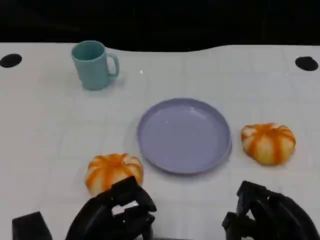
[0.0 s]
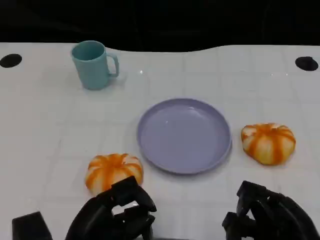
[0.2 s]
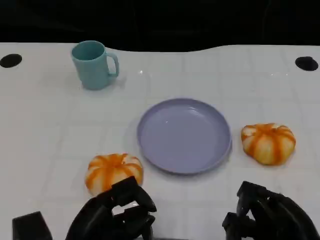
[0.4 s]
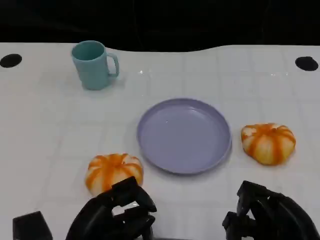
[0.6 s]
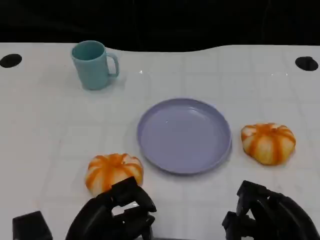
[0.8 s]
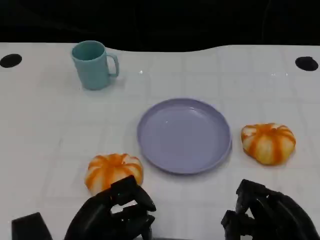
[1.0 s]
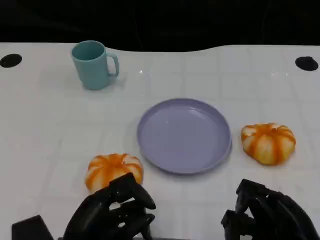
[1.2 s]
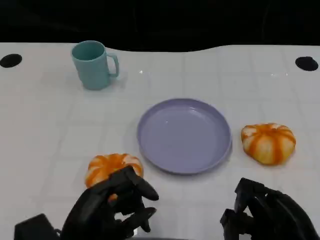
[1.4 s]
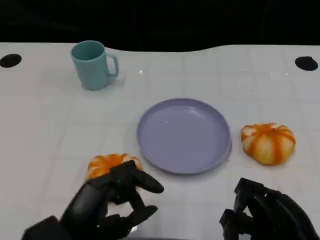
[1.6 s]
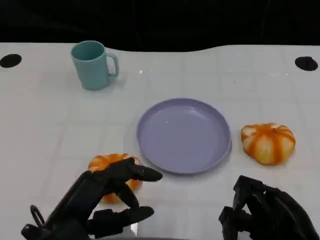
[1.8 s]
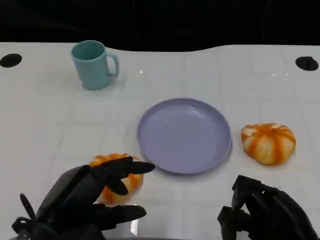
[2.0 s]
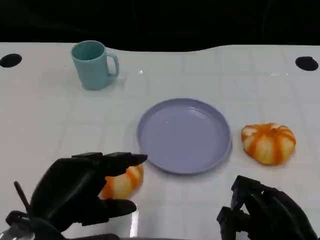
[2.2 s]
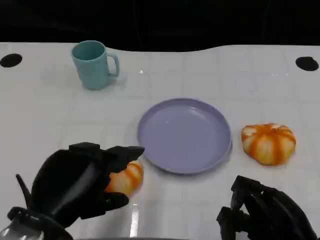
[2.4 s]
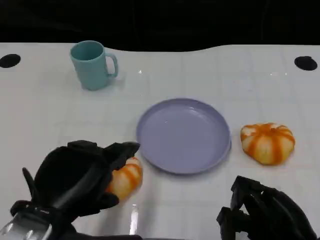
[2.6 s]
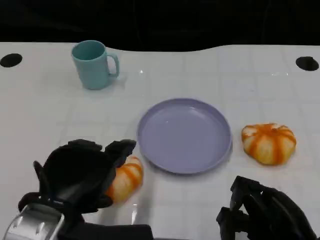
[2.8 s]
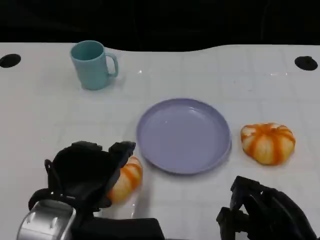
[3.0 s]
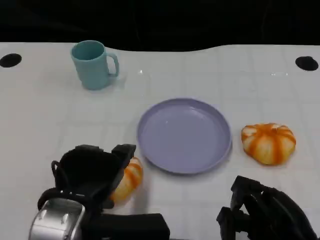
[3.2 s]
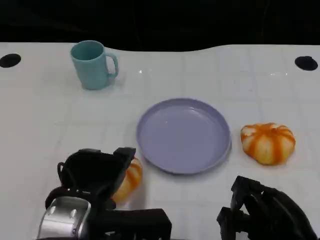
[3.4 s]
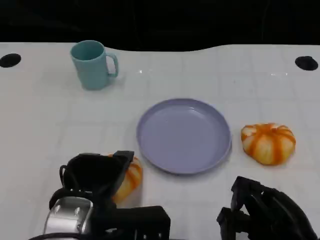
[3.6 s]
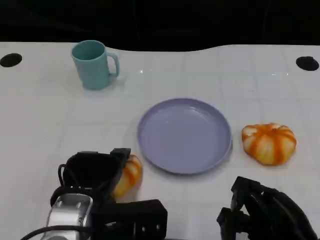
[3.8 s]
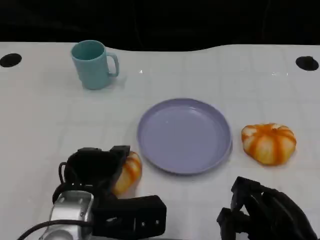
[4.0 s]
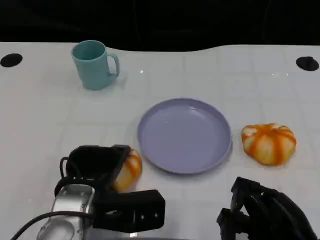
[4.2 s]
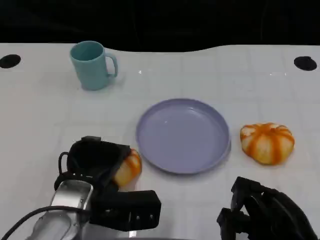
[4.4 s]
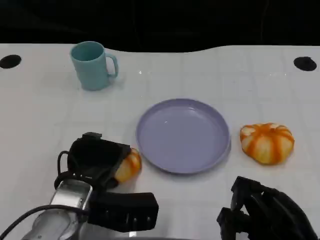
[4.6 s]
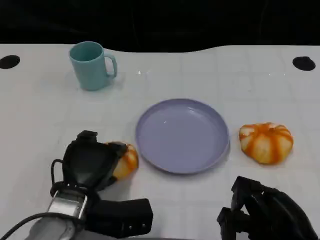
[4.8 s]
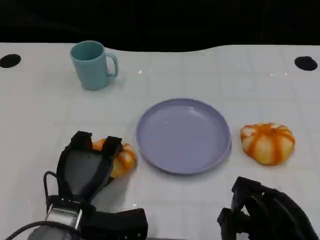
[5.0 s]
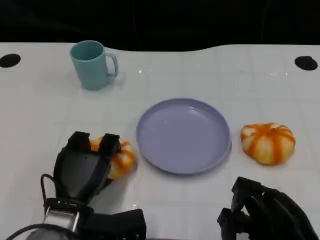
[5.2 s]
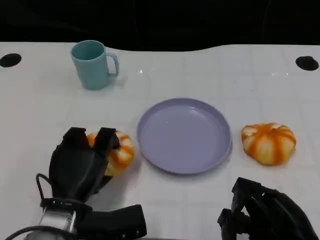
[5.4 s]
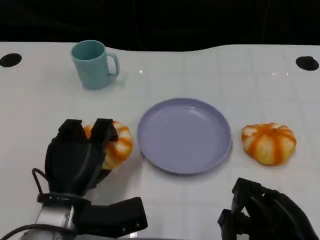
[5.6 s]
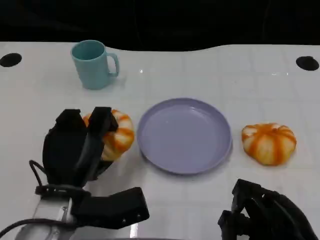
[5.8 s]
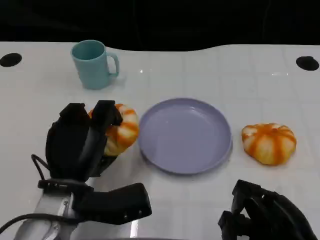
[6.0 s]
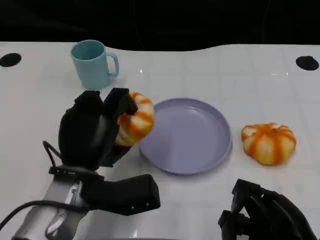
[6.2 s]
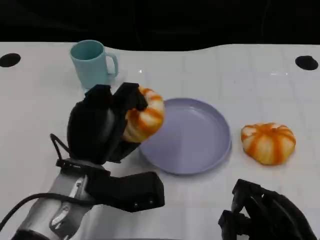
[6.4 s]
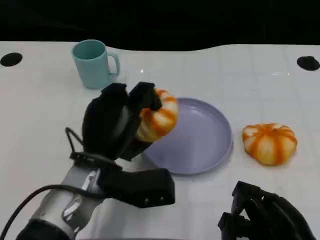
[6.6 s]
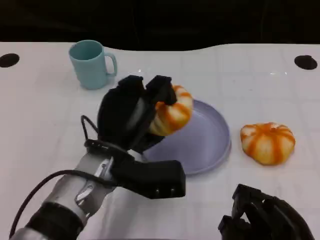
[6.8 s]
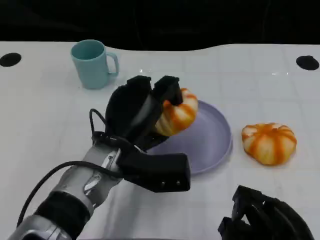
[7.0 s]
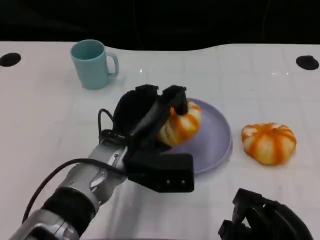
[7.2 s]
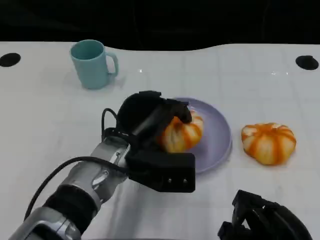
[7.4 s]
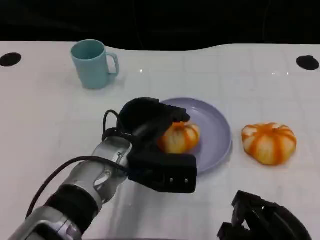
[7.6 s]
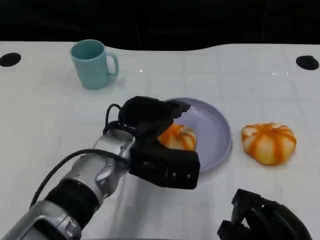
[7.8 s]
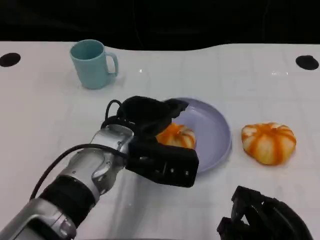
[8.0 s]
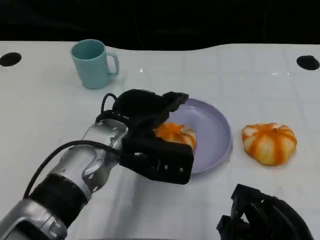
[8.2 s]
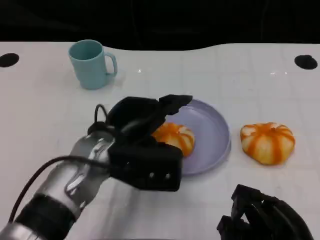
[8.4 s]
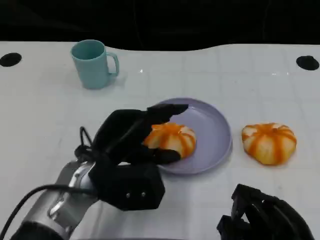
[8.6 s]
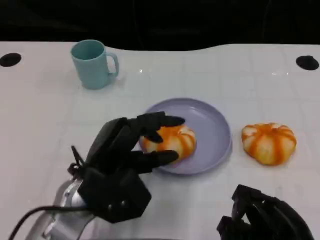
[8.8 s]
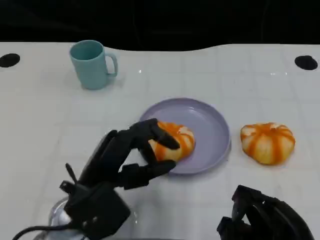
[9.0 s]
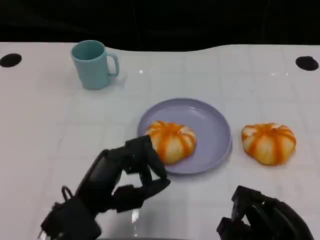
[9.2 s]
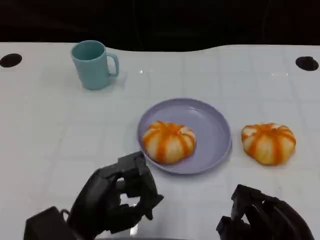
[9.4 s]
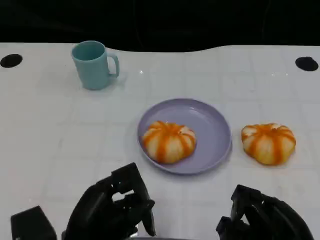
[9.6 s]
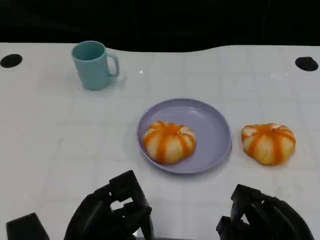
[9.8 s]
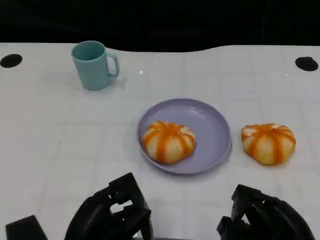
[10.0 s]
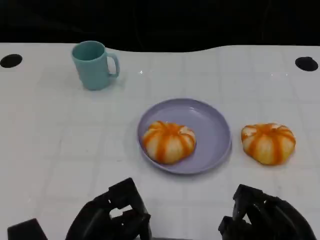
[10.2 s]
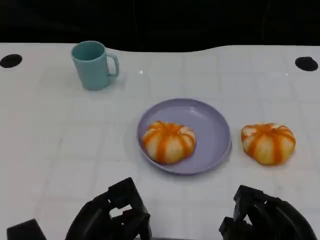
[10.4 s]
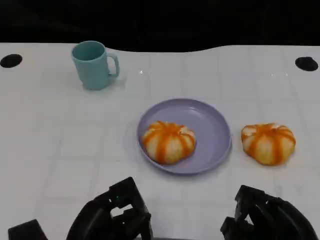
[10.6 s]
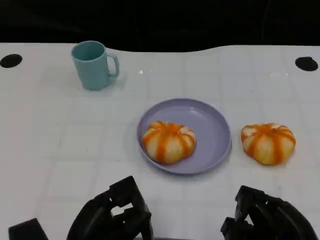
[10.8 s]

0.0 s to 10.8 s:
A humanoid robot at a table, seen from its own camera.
Task of the whole recording: Grasp the bread from the table and place it into the plate.
1.6 to 3.0 s: The left hand goes some 5 cm upward.
3.0 to 4.6 s: The left hand shifts some 10 cm downward and forward.
6.2 to 7.8 s: The left hand shifts about 5 cm to the right.
7.8 to 9.2 s: The left hand shifts roughly 15 cm backward and to the left.
9.2 to 10.8 s: The left hand ends up approximately 5 cm from where it was.

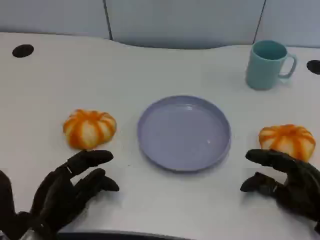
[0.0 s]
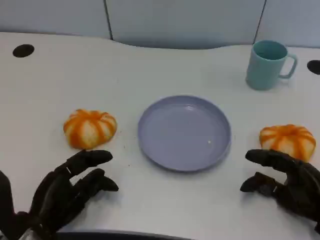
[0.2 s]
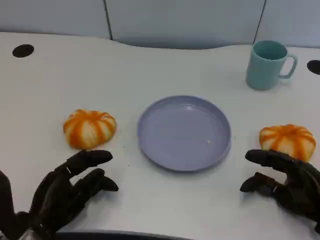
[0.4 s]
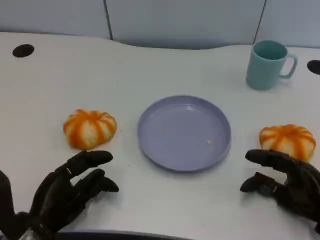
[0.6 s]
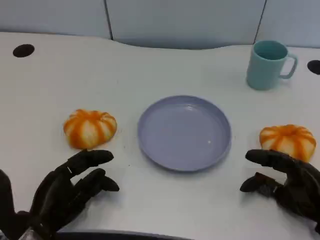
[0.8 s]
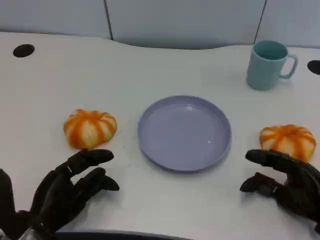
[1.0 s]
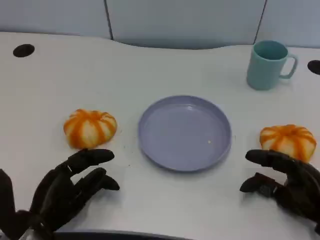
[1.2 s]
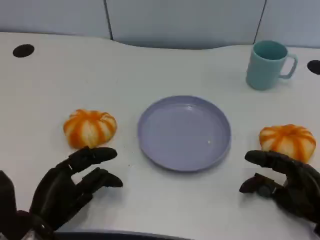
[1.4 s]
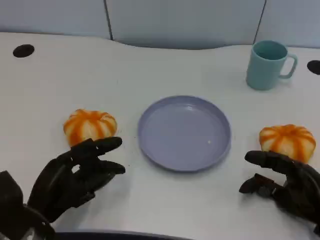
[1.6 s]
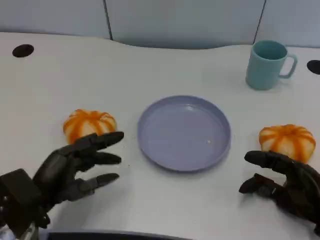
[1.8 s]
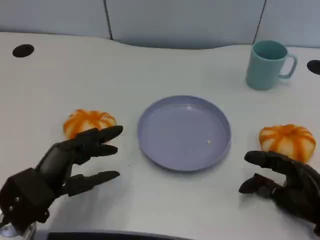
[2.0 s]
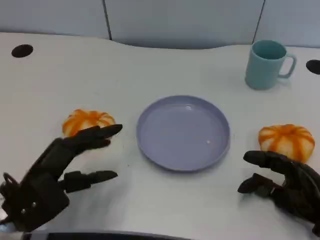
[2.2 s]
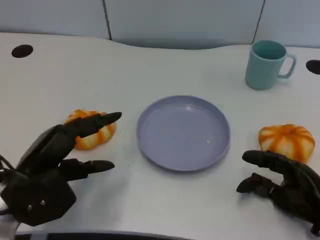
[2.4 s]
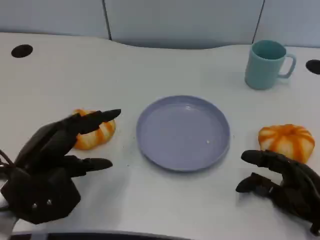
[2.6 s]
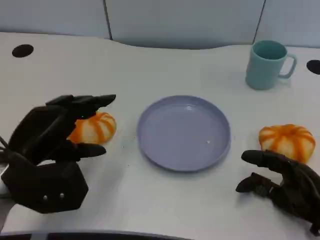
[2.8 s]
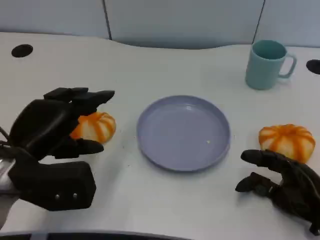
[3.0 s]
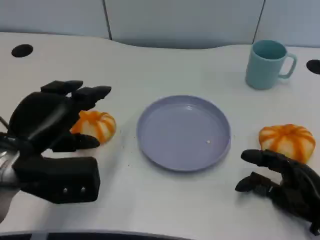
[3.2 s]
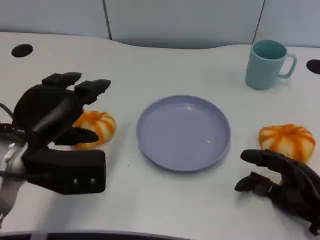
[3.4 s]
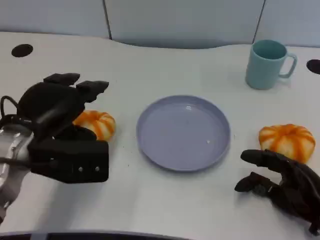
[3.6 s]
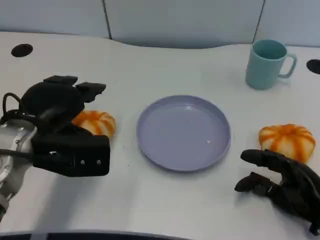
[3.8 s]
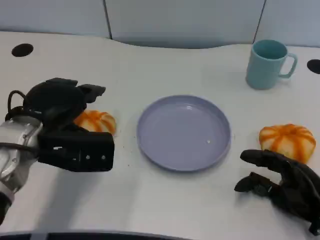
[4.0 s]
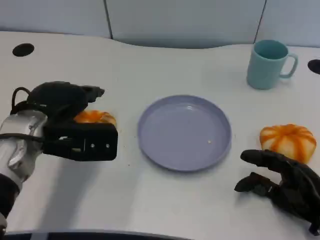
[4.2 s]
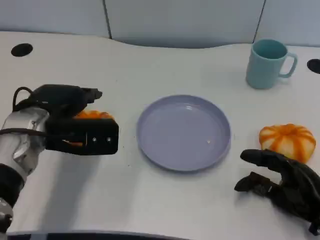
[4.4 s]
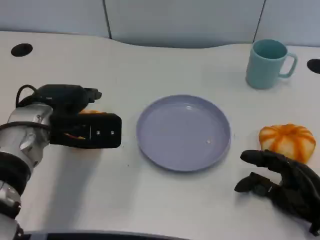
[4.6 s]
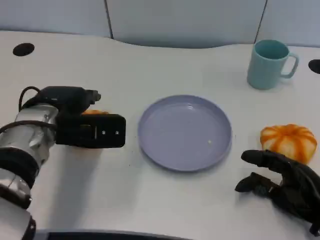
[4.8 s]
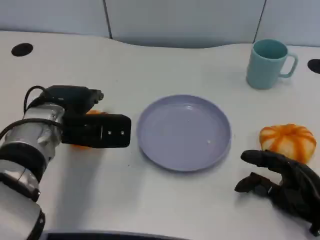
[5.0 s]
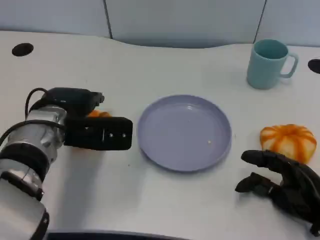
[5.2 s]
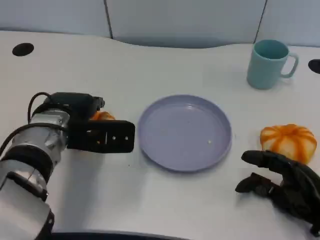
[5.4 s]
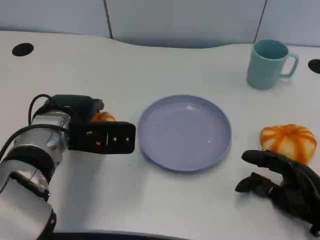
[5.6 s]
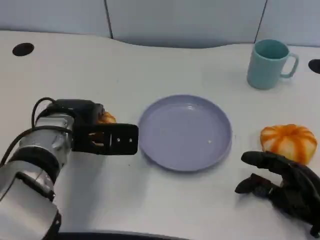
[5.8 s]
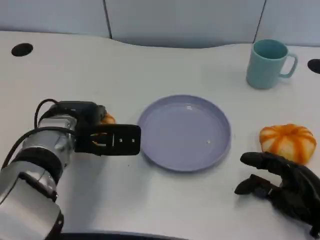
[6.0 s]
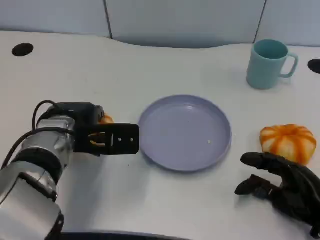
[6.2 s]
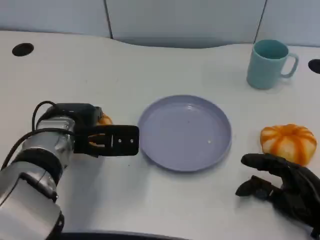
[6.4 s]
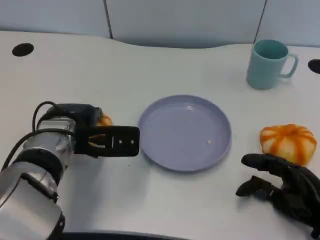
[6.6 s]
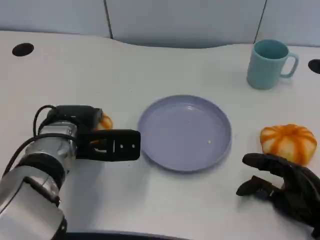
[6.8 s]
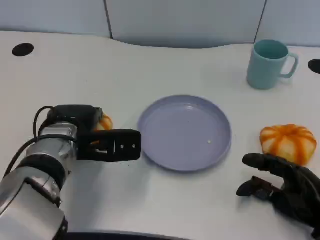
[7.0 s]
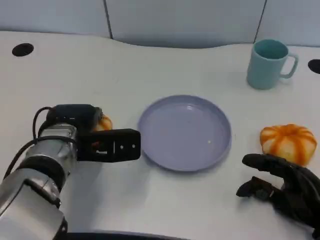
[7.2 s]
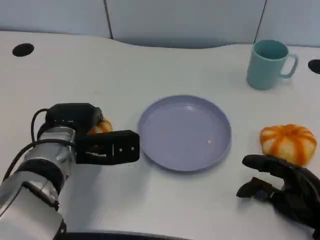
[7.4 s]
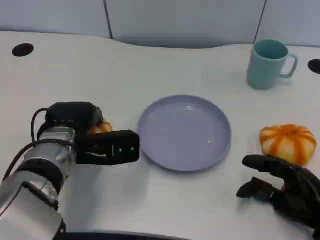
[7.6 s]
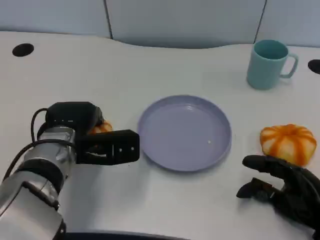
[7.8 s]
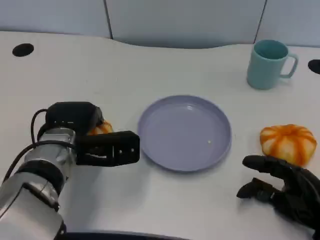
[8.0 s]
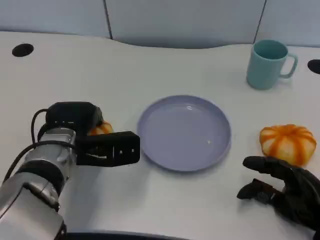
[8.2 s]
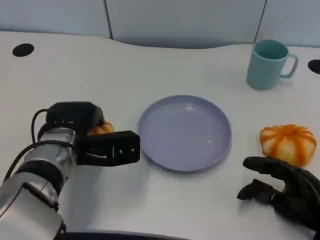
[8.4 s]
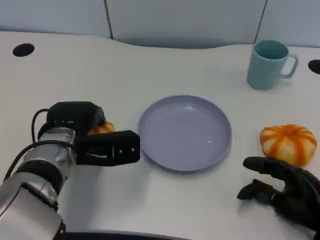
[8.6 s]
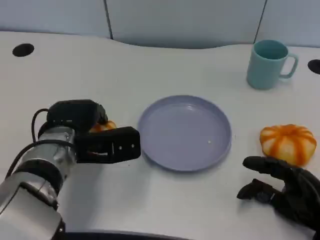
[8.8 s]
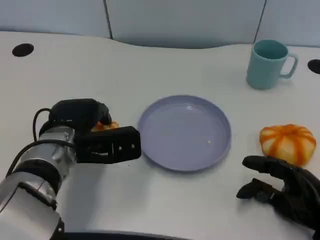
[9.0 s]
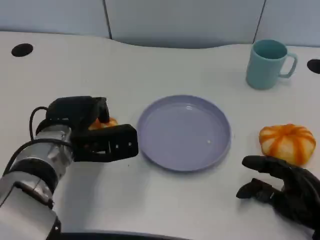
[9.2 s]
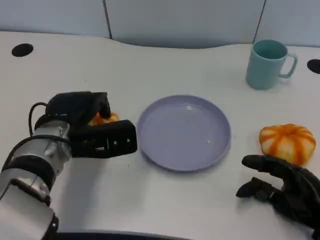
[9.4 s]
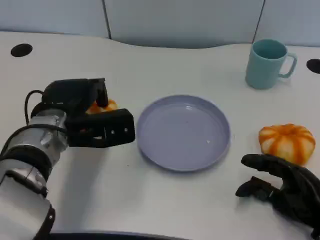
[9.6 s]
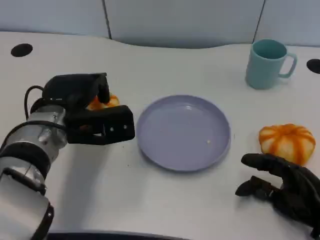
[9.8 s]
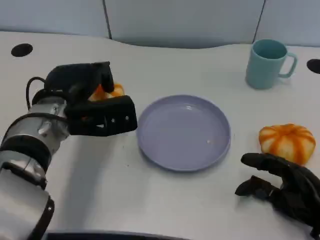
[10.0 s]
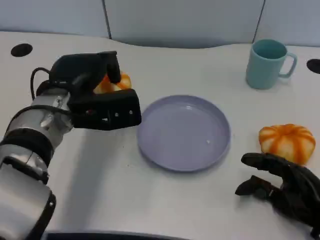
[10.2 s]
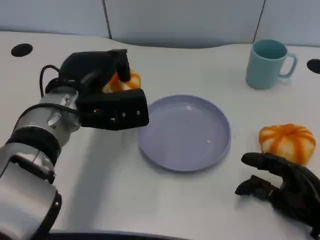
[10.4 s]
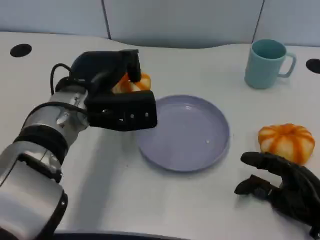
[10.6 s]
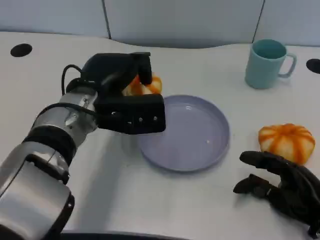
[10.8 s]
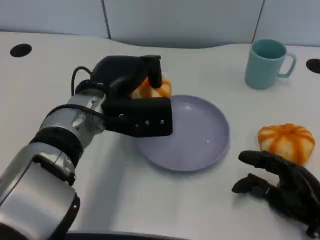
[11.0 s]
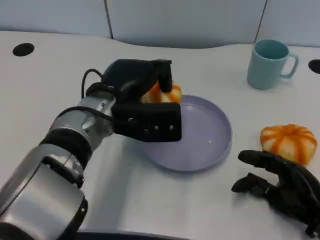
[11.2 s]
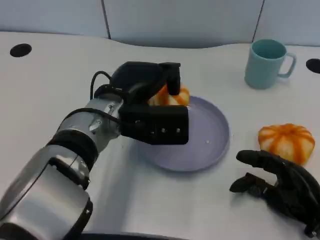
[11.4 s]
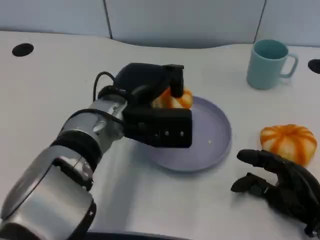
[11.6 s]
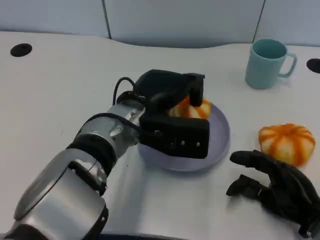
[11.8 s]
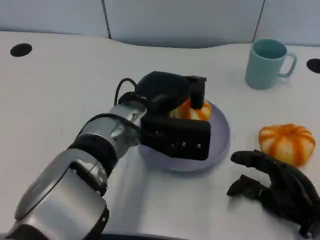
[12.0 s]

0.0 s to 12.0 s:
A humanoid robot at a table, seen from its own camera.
Task of the whole recording: Grasp the bread from the table and place it into the plate.
1.6 to 3.0 s: The left hand heads upward, covering roughly 10 cm.
3.0 to 4.4 s: The left hand goes some 5 cm forward.
4.4 to 9.0 s: There are only small adjustments of the hands.
9.0 to 10.4 s: The left hand heads upward, covering approximately 5 cm.
10.4 to 12.0 s: The left hand travels to the right by about 10 cm.
